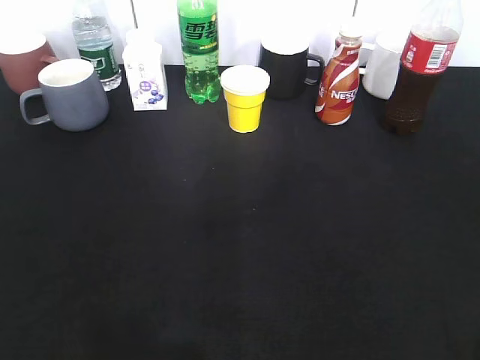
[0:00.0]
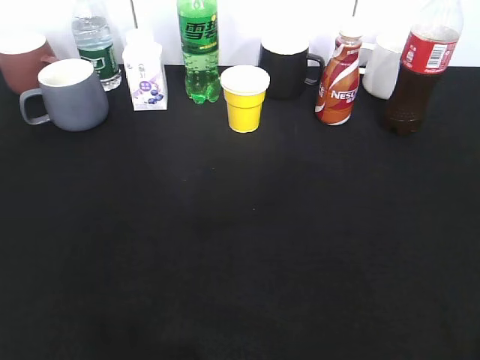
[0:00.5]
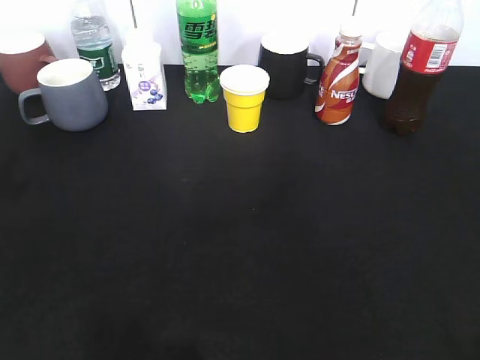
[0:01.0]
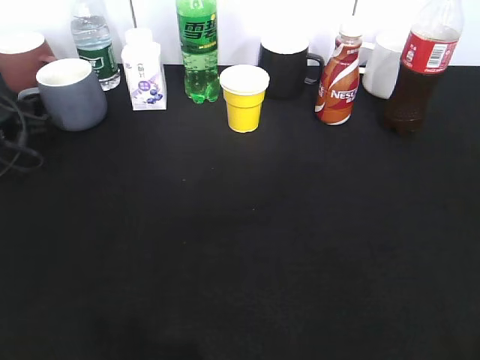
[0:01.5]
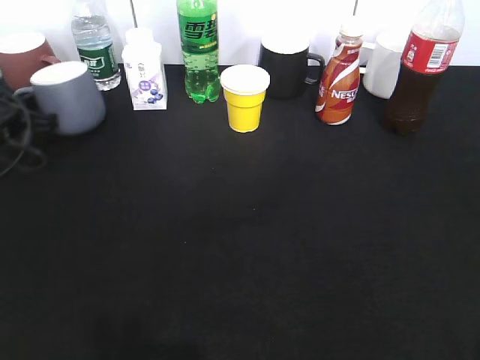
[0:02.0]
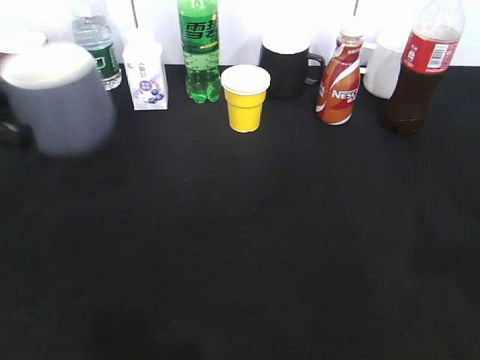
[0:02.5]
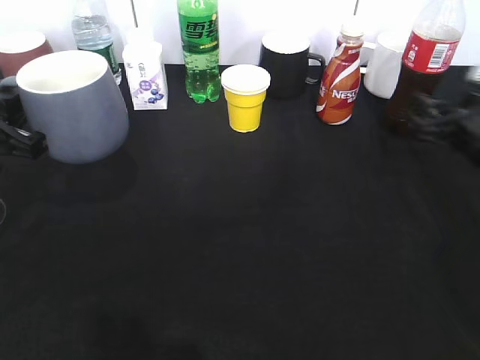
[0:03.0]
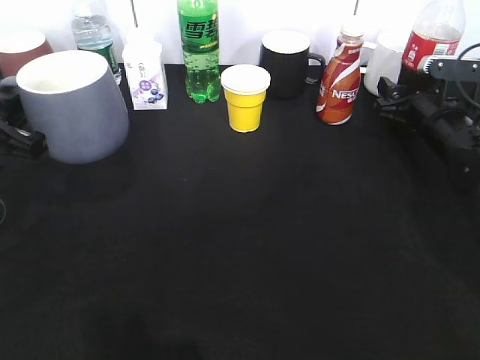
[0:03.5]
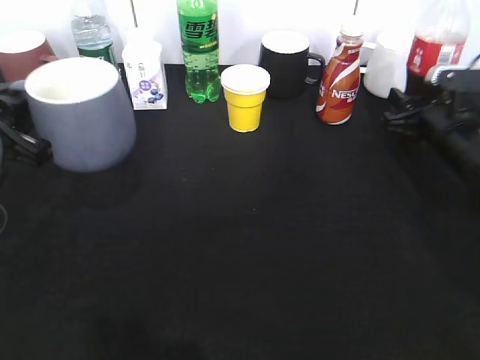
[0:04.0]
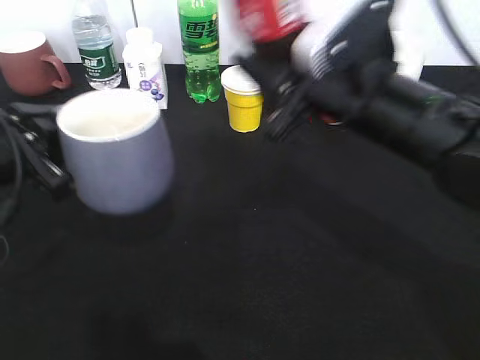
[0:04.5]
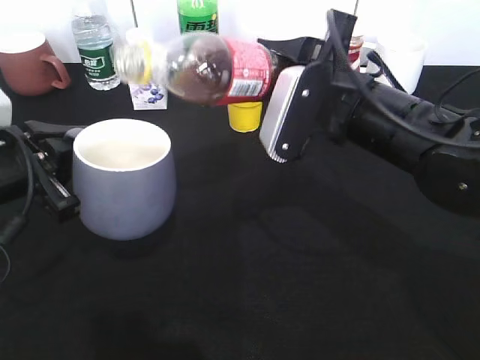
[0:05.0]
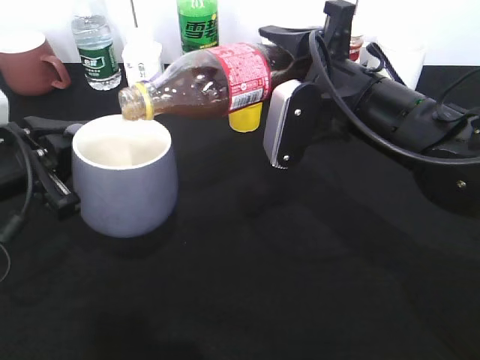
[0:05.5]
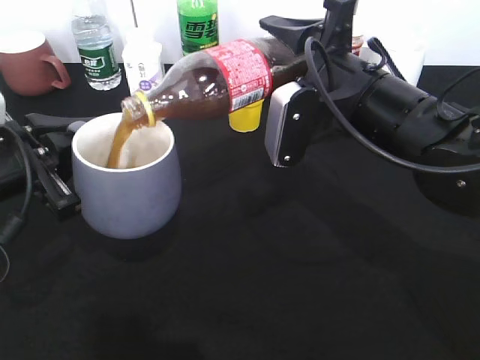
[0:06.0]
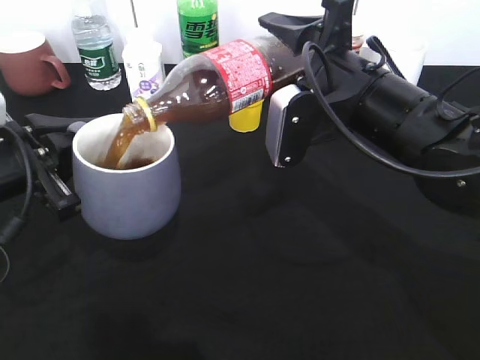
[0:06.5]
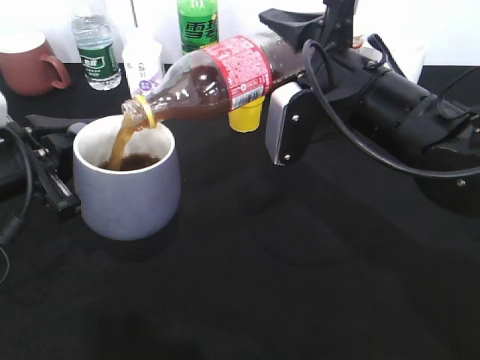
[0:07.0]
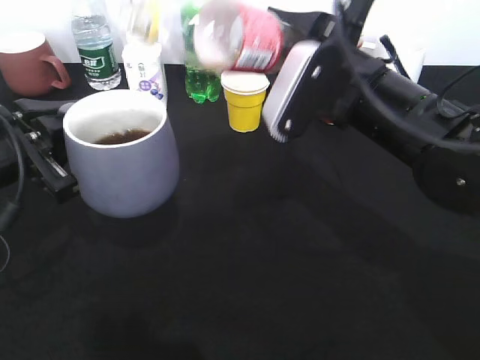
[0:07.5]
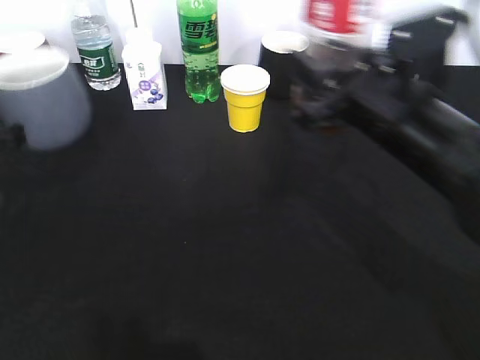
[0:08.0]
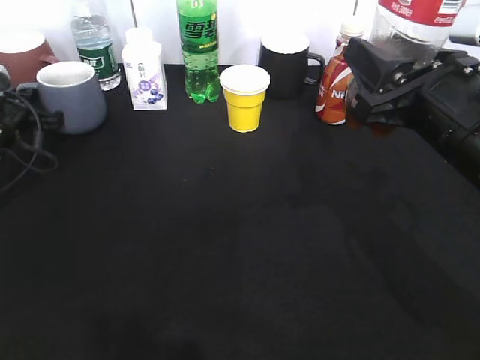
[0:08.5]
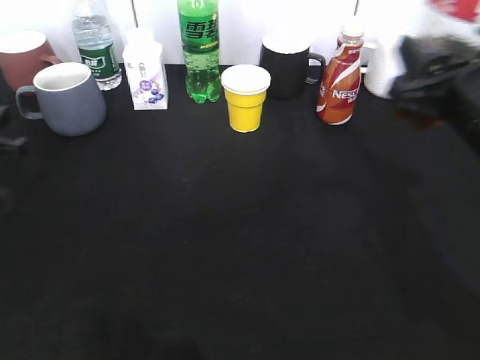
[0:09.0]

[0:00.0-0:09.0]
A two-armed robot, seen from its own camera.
Step, 0:02.0 to 0:02.5: Lift the grey cup with left gripper.
Step, 0:04.0 to 0:06.5: Pour the cola from bottle to cup with right gripper.
0:00.0 to 0:02.0: The left gripper moves forward and downward, approximately 40 cm, and closes its fingers.
0:02.0 to 0:04.5: The left gripper moves backward, to the right and upward, about 20 cm; the right gripper heads forward and to the left, covering roughly 35 cm, and closes up.
0:07.0 to 0:09.0: The right gripper is displaced to the right by roughly 10 cm, while the left gripper travels to the left and forward by roughly 10 cm, and opens up.

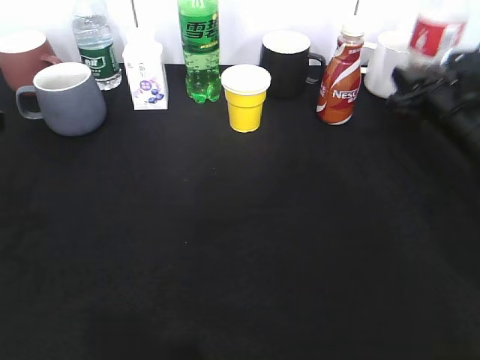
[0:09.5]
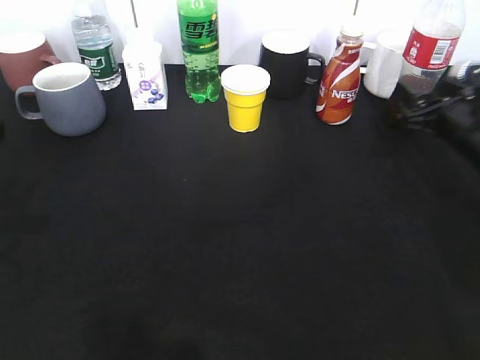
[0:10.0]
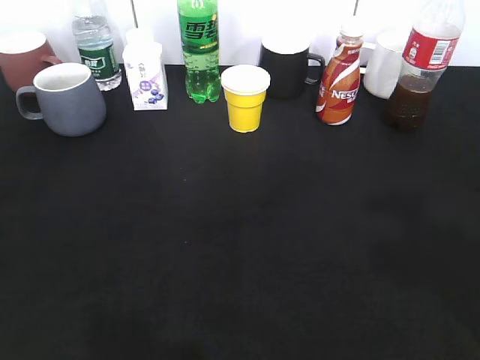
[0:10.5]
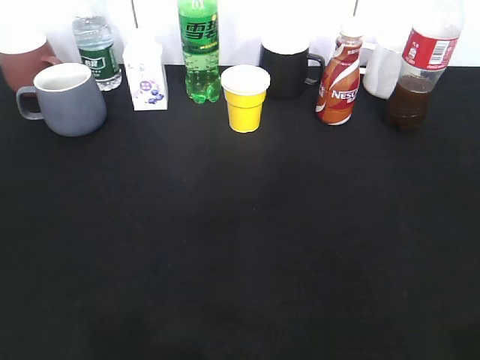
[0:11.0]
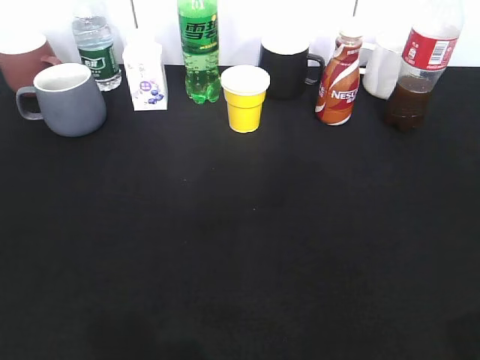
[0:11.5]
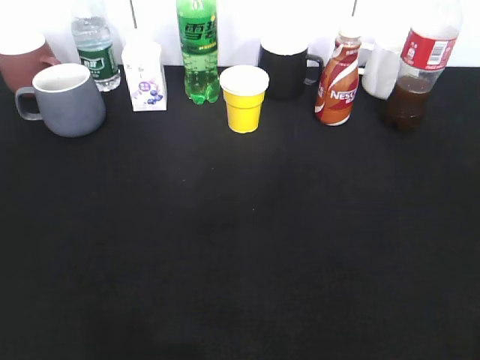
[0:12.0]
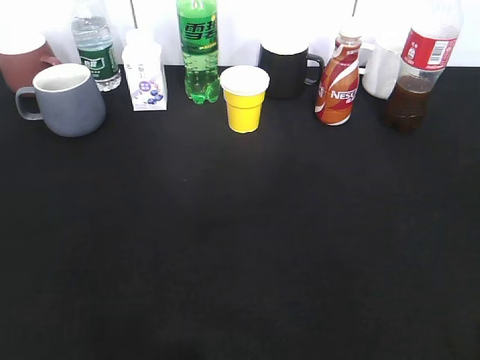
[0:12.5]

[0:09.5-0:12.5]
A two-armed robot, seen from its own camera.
Step, 0:09.5 to 0:10.0: Place the cola bottle on the table with right gripper.
0:09.5 to 0:11.0: The right gripper is displaced backward and upward by about 40 cm, and opens. The left gripper heads backward, covering roughly 20 cm, and opens up.
0:11.0 to 0:12.5: The left gripper closes up.

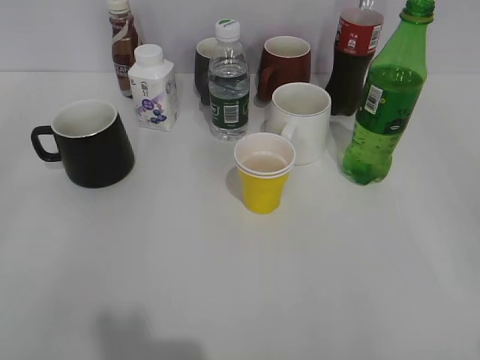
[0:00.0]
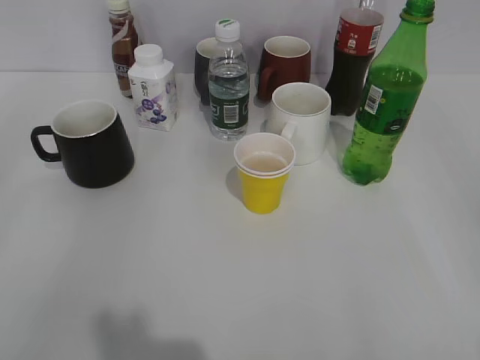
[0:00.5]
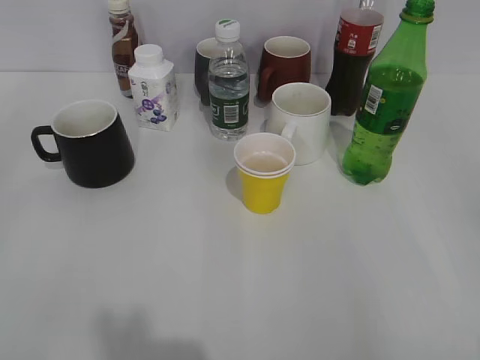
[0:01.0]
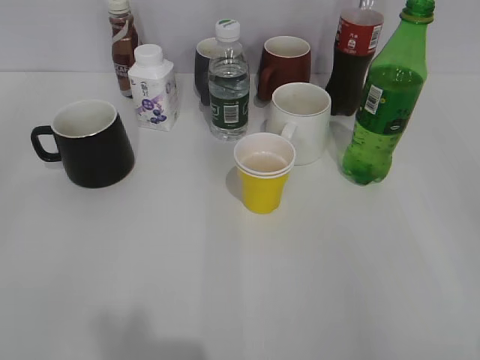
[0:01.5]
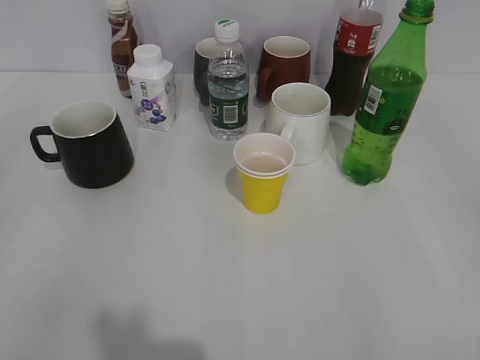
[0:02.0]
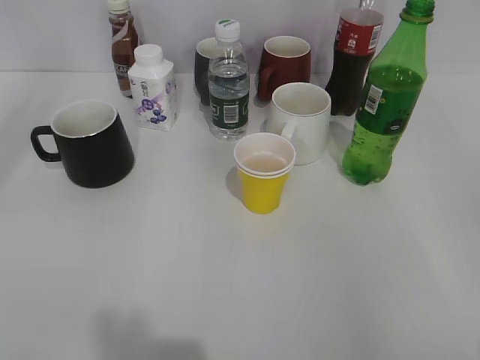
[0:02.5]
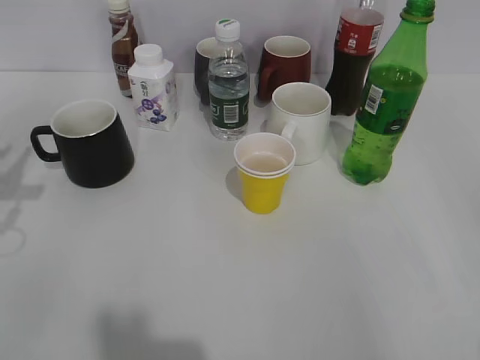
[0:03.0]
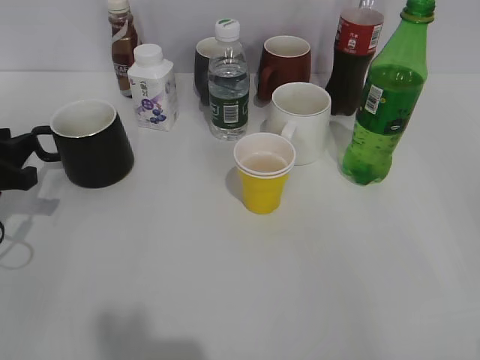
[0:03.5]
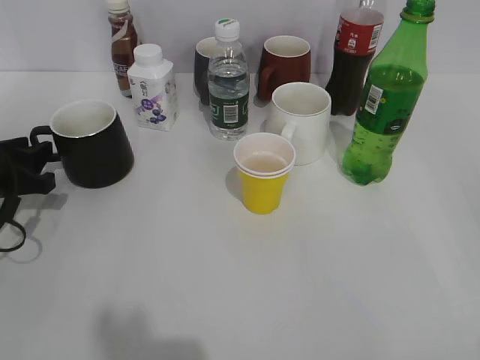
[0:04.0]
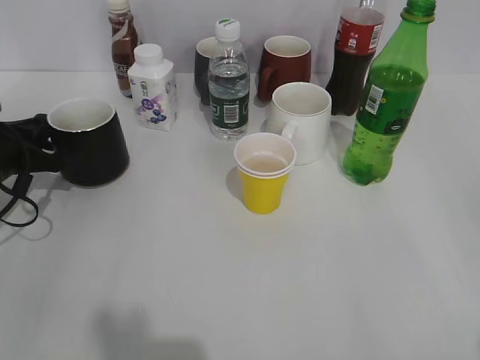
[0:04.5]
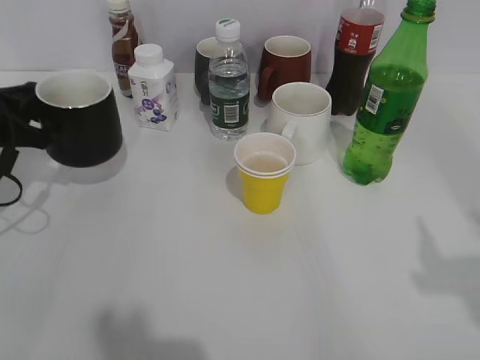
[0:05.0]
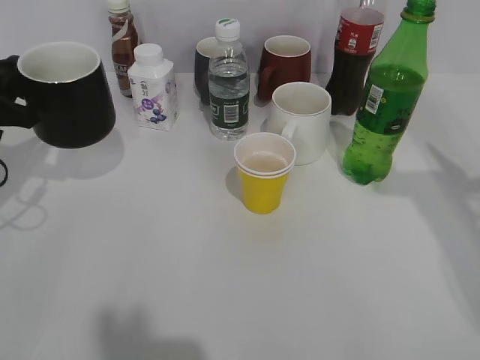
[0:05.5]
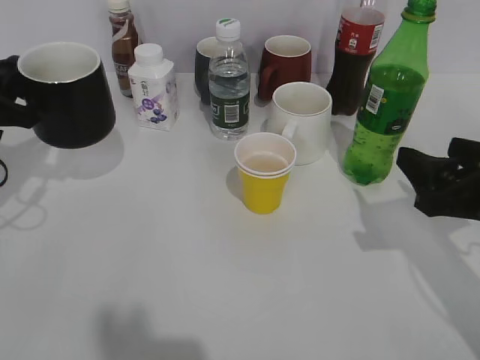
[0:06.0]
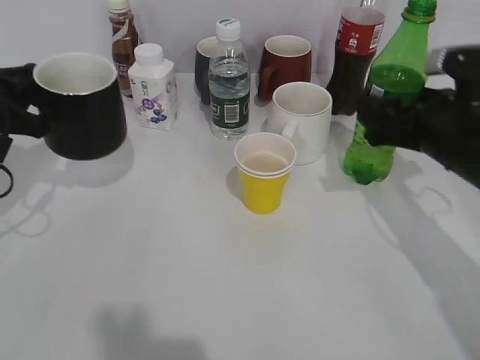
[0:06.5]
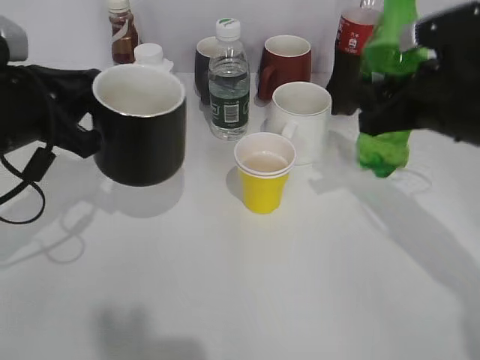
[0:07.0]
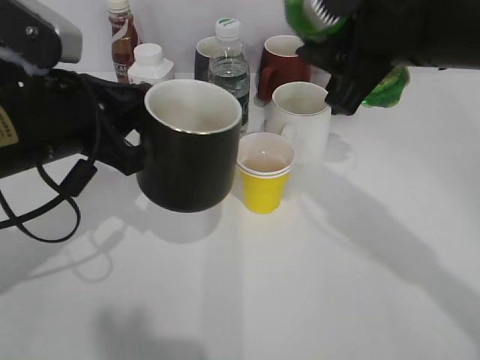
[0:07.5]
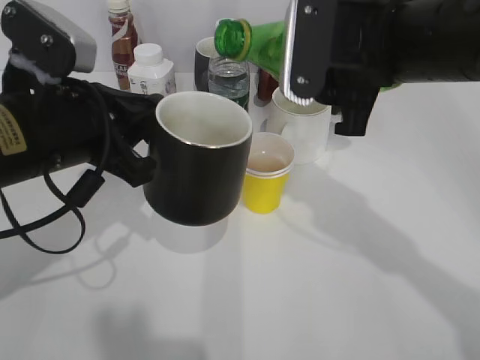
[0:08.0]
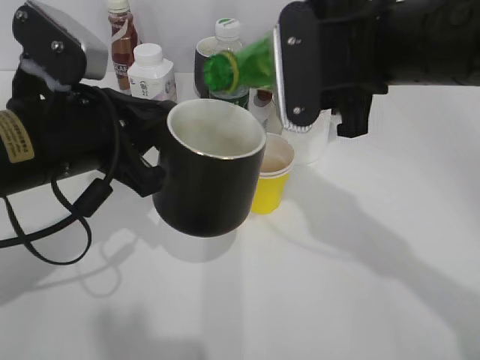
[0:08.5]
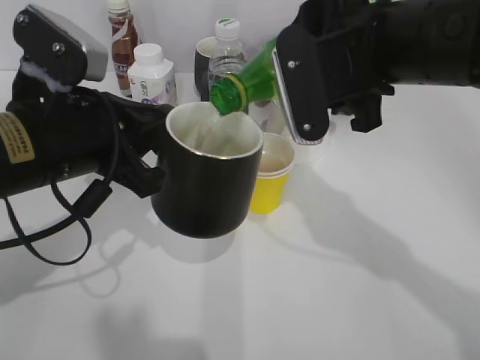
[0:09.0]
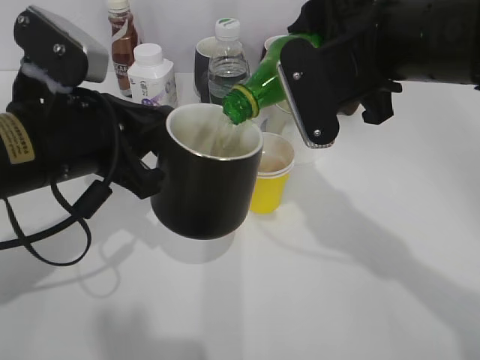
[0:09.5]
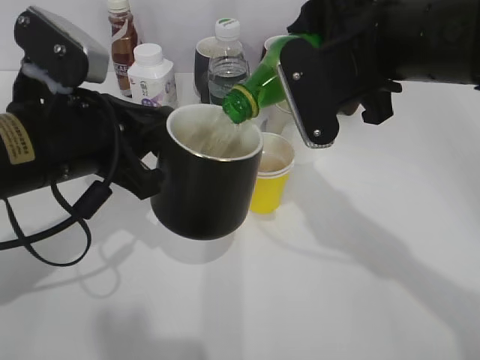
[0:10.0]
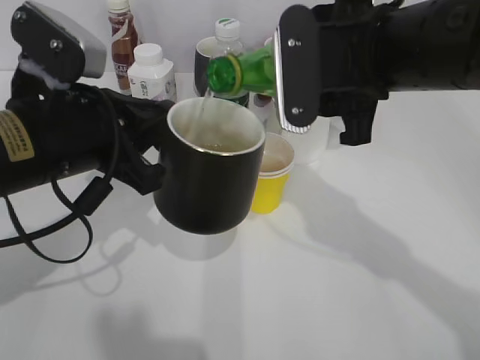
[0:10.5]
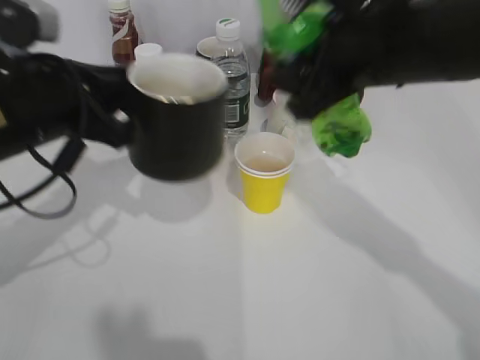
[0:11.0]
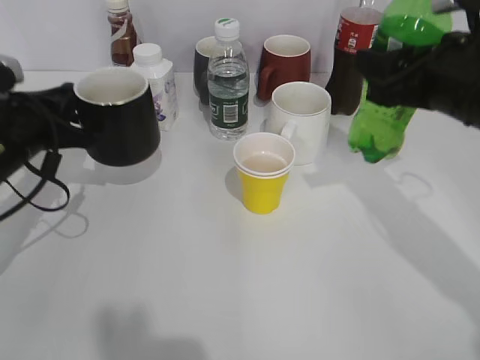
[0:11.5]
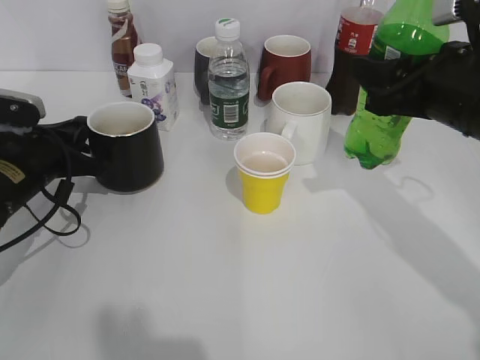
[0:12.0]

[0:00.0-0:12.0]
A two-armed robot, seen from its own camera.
Step, 0:02.0 to 0:04.5: Grasp the black cup with left gripper.
Step, 0:05.0 to 0:05.5: Lift the black cup with left gripper.
Step, 0:06.0 to 0:06.5: Grasp the bottle with sprite with right gripper.
Step, 0:07.0 to 0:10.5: Pour the sprite from bottle to cup with right gripper.
0:02.0 to 0:04.0: The left gripper moves forward and downward, approximately 30 cm.
0:04.0 to 0:06.0: The right gripper goes about 20 cm forward and downward, while the left gripper travels upward by some 10 cm, and closes its fingers.
0:06.0 to 0:08.0: The right gripper travels to the left, upward and forward by roughly 20 cm, and closes. Meanwhile the left gripper travels to the right and backward by some 15 cm.
0:10.0 to 0:12.0: The left gripper moves downward, to the left and forward, some 15 cm; the right gripper goes about 10 cm to the right.

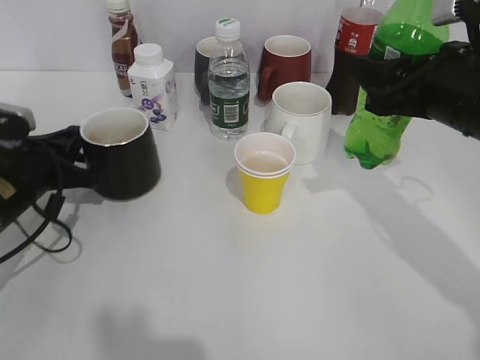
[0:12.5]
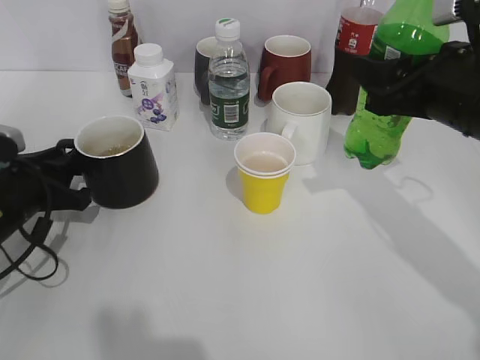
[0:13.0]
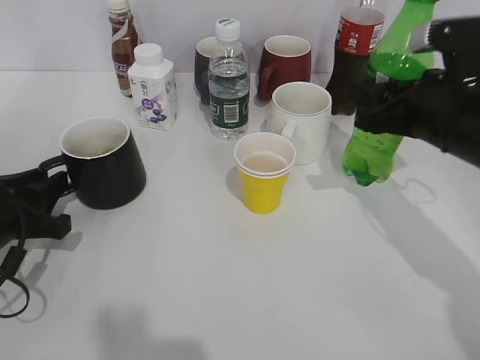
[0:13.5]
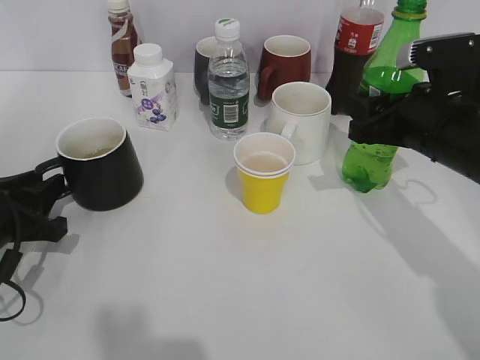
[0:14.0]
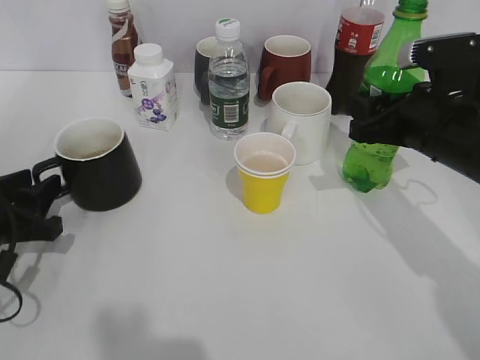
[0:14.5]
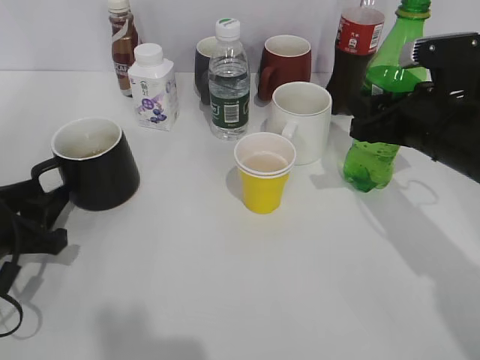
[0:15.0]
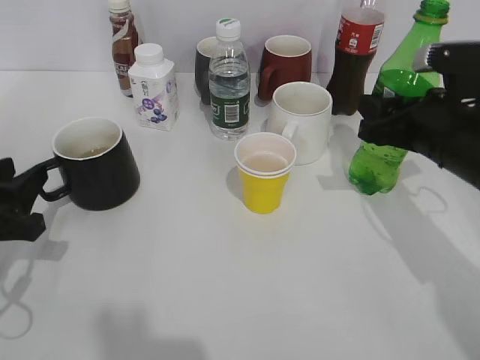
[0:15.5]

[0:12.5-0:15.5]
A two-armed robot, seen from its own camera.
0:12.5 to 0:14.0: The right gripper is displaced downward by roughly 5 cm. Meanwhile the left gripper heads backward, covering some 5 cm, and opens its fingers.
0:14.0 to 0:15.5: The grippers stay close to where they were, moving slightly.
